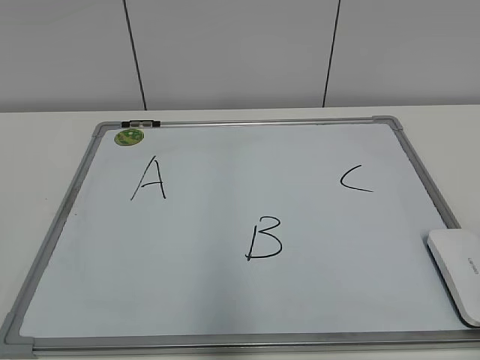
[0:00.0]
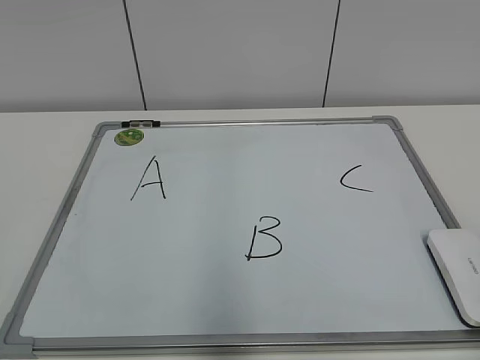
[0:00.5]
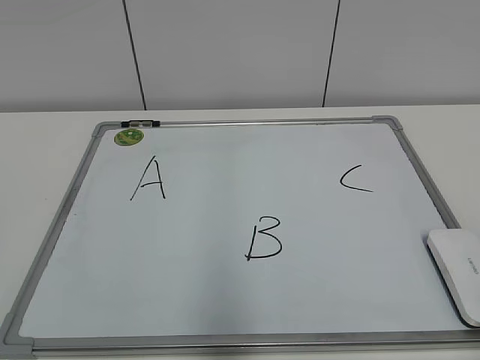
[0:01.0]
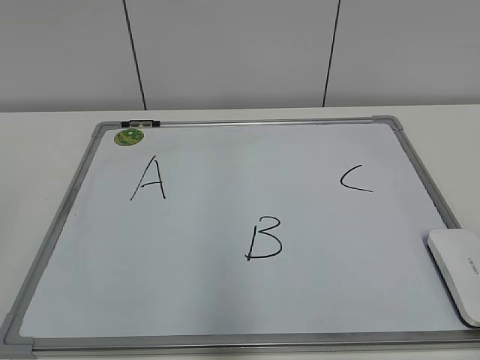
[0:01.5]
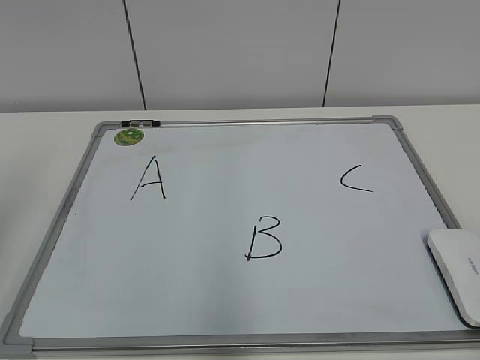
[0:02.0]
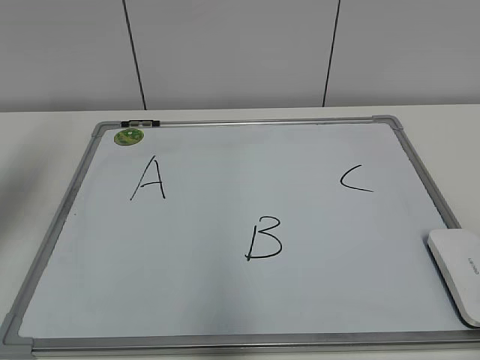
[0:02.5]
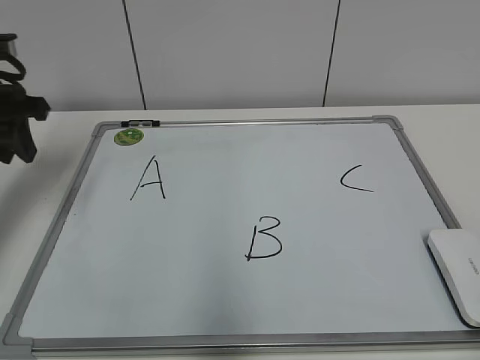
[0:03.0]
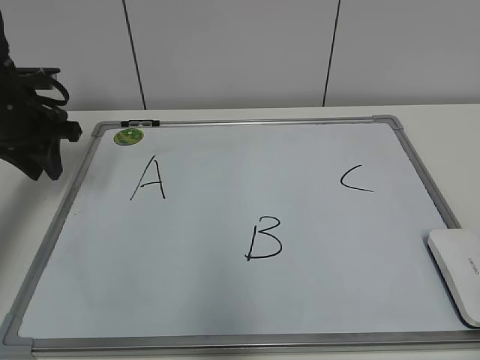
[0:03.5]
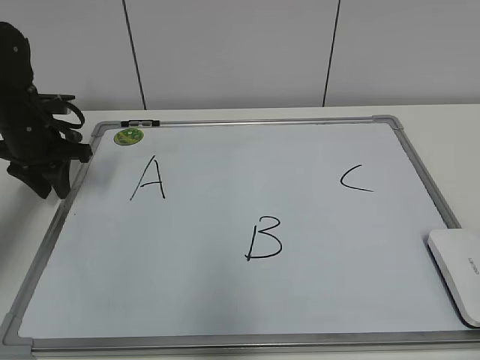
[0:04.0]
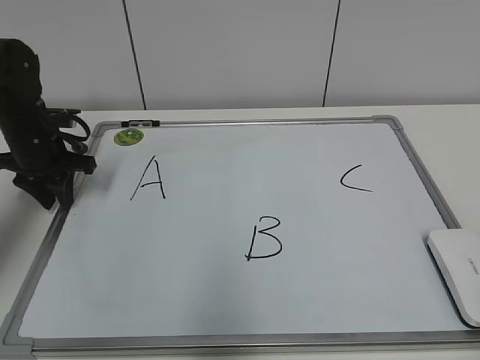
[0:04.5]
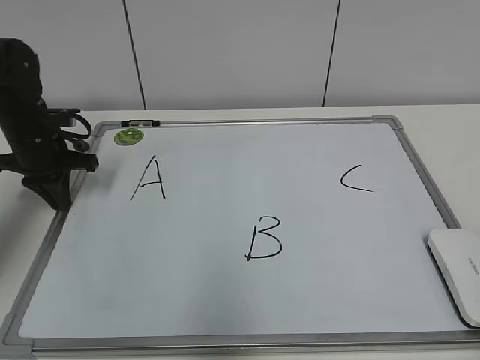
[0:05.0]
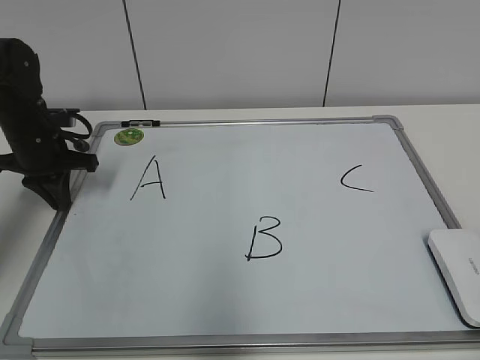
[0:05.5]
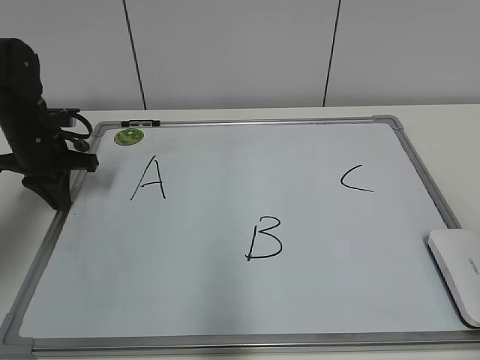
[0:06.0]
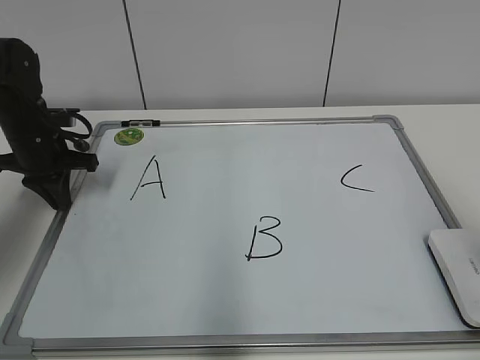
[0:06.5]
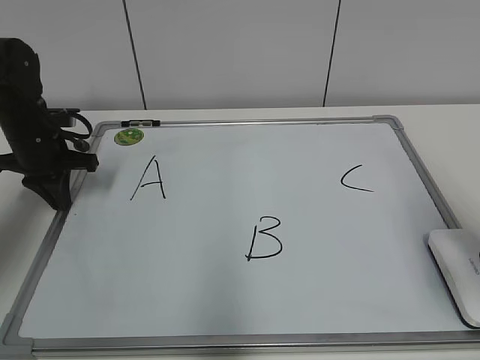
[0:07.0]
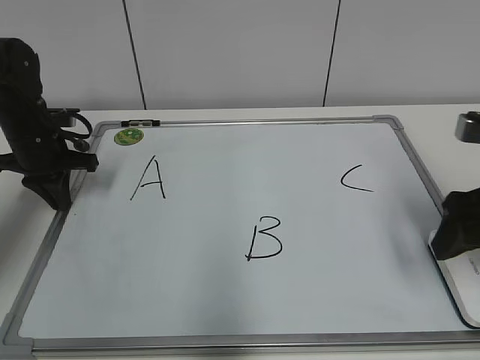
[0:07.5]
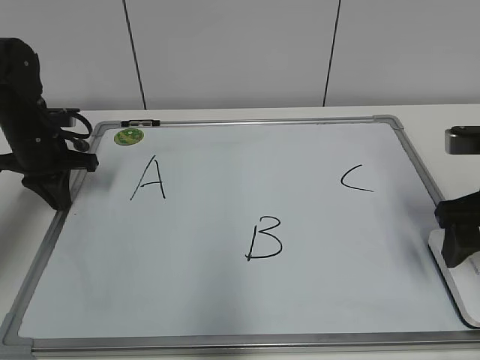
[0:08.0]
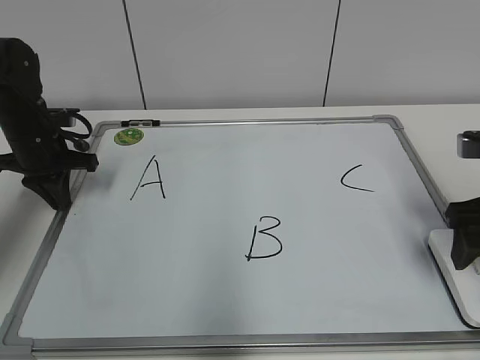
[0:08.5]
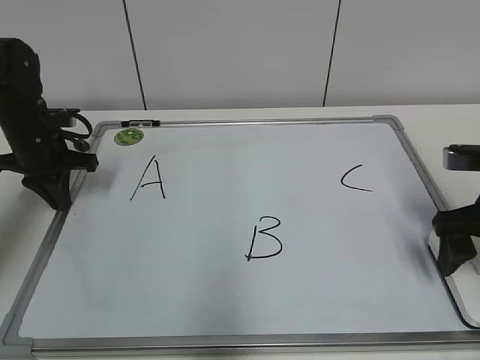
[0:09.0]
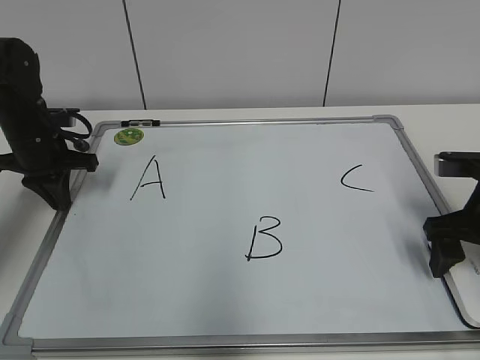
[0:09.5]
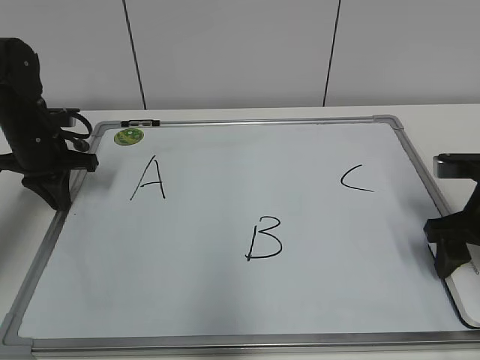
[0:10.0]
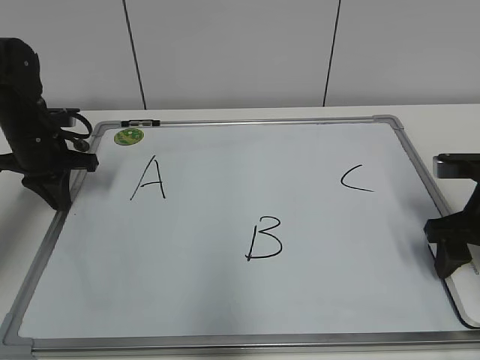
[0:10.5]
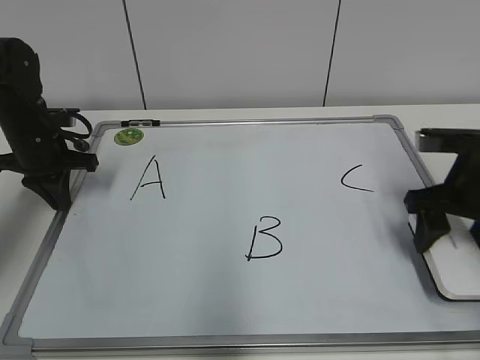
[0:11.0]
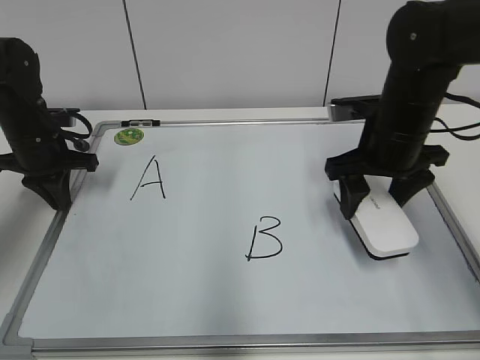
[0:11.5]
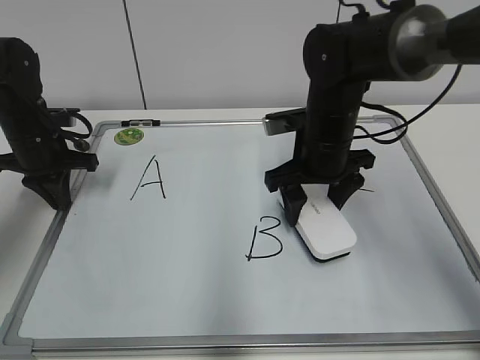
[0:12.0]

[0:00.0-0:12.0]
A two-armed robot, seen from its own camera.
Task of the whole recording: pick up the eraser on the blackboard and erase the letter "B".
Step, 0:00.0 to 0:04.5: Hold the drawing board steady with your left hand.
Step, 0:05.5 to 0:10.5: Grab the eraser with your right hand.
0:02.0 to 0:04.0: The left gripper moves forward and downward, approximately 30 cm.
0:04.0 to 0:06.0: The left gripper closes.
0:06.0 to 0:08.0: The right gripper heads forward and downward, covering some 25 cm, and opens its fingers.
0:08.0 to 0:10.0: The right gripper shifts about 5 cm downward, and closes its fingers.
0:10.0 to 0:12.0: The right gripper heads to the left and forward, covering roughly 20 cm.

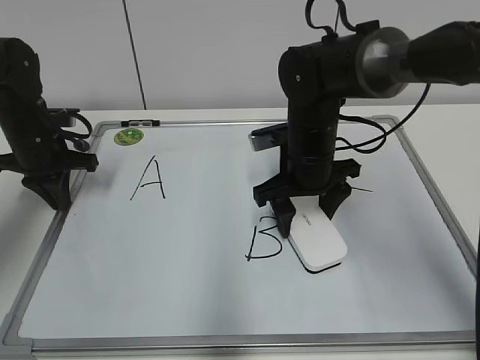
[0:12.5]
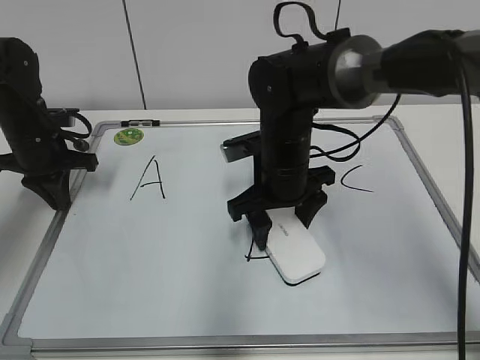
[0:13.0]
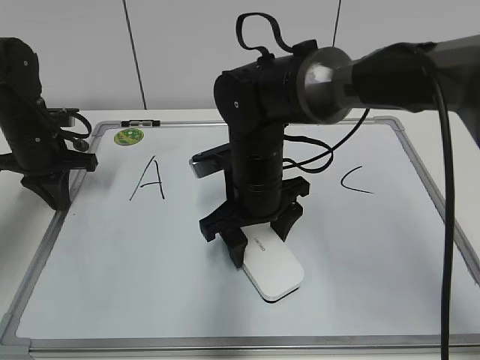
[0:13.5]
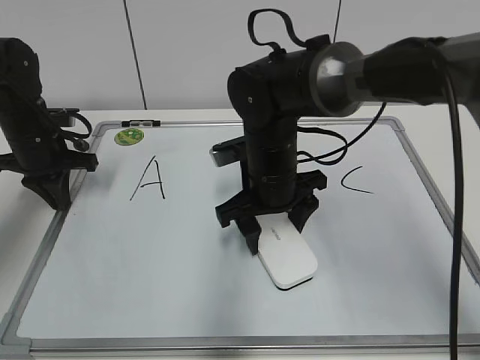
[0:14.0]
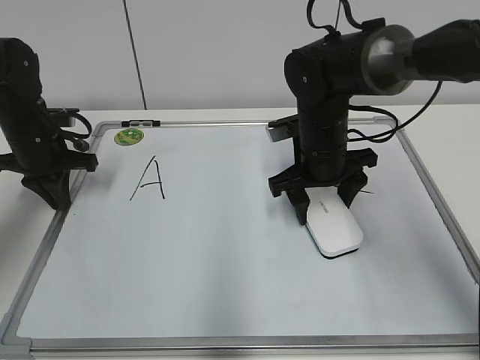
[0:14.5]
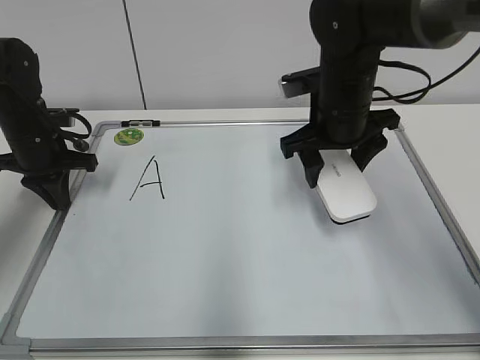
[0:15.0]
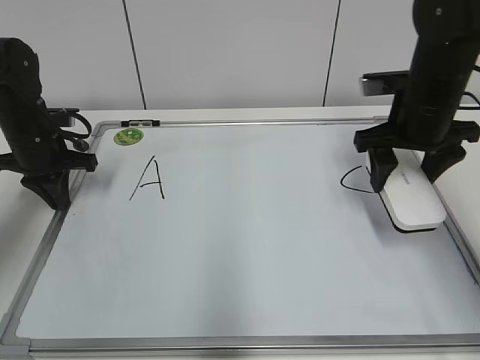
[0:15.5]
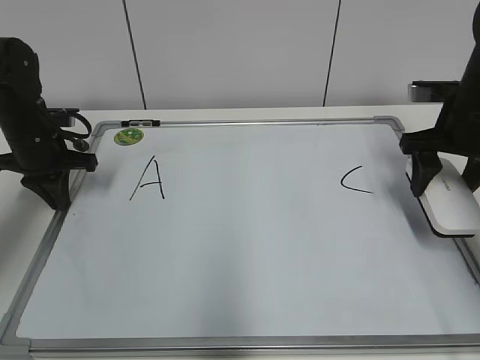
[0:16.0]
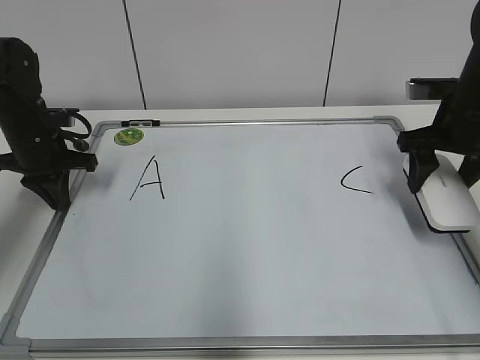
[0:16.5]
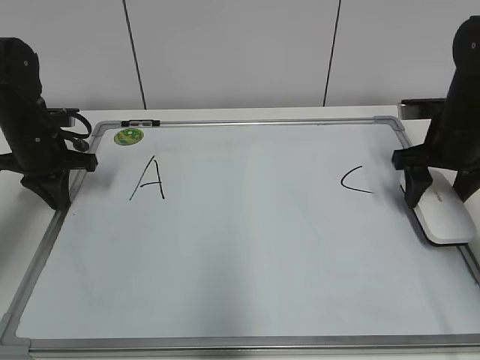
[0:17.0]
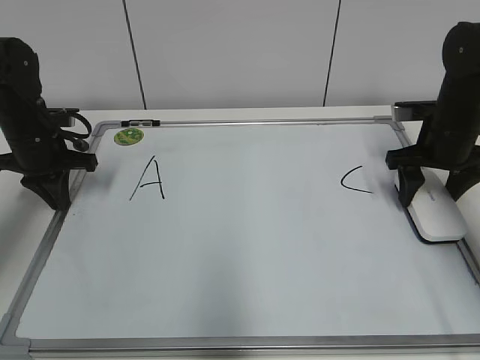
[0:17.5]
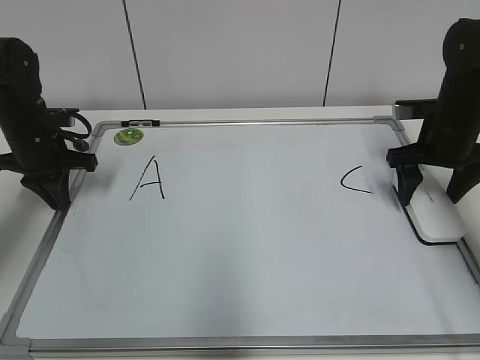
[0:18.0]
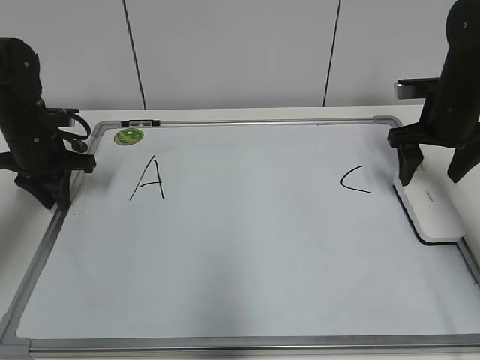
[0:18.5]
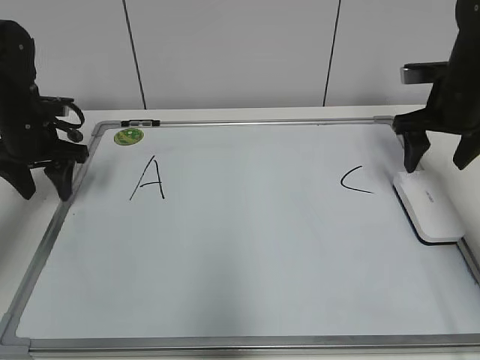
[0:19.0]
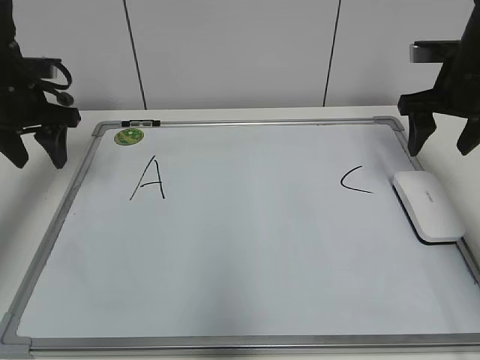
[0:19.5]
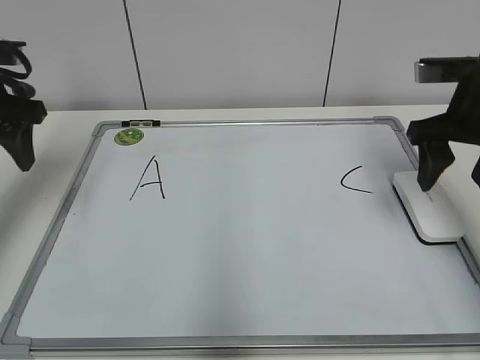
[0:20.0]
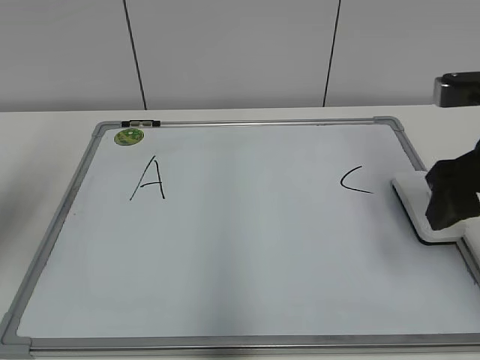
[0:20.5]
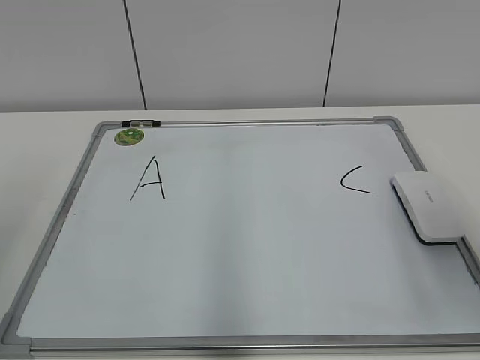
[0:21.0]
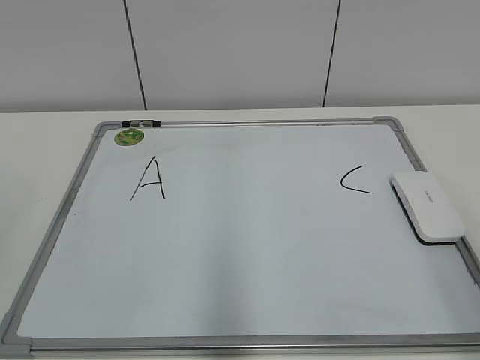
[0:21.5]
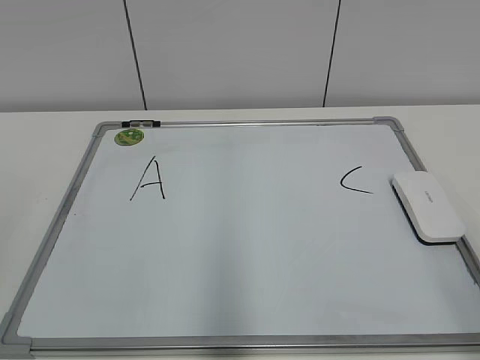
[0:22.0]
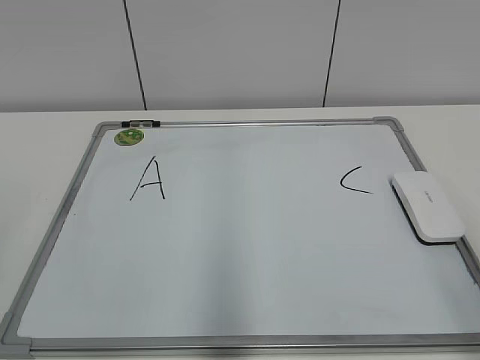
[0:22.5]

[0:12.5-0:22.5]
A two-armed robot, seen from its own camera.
Task of the whole recording: pick up the eraser on the blackboard and erase the letter "B".
Step, 0:14.5 to 0:17.5: Put down the eraser with your right hand.
0:12.5 to 0:14.5: The right gripper reaches roughly 5 cm to the left, then returns.
0:14.5 to 0:16.5: The right gripper shifts approximately 15 cm to the right.
0:16.5 to 0:18.5: The right gripper opens.
0:18.5 to 0:20.5: Both grippers travel together backward and upward, about 20 cm. The left gripper opens up. The right gripper closes.
0:20.5 to 0:22.5: Both grippers move backward, roughly 20 cm.

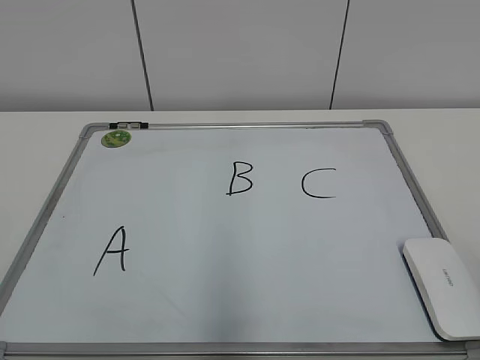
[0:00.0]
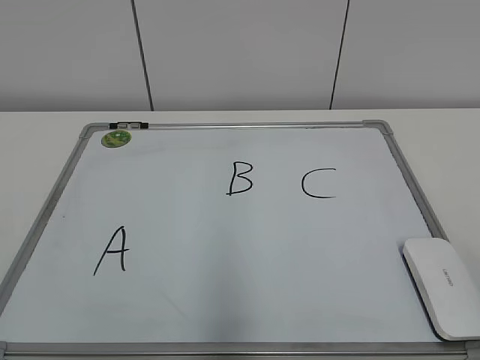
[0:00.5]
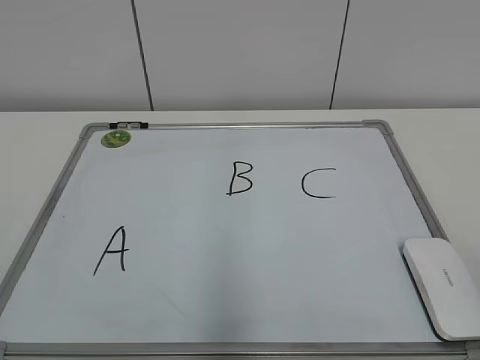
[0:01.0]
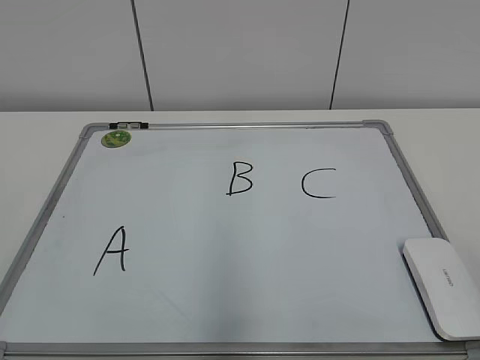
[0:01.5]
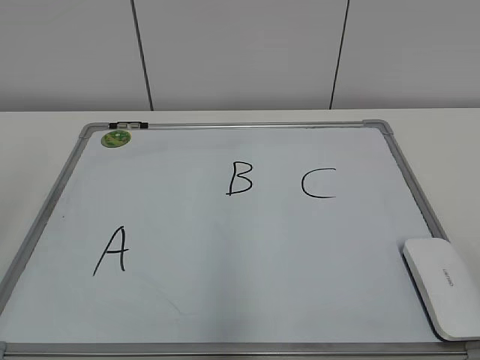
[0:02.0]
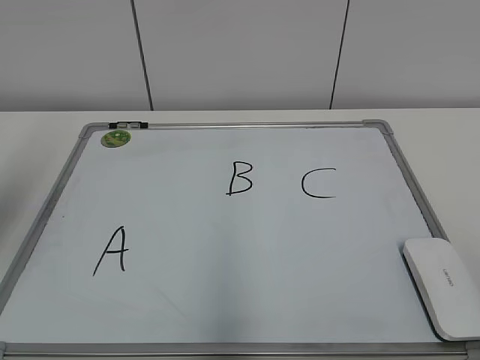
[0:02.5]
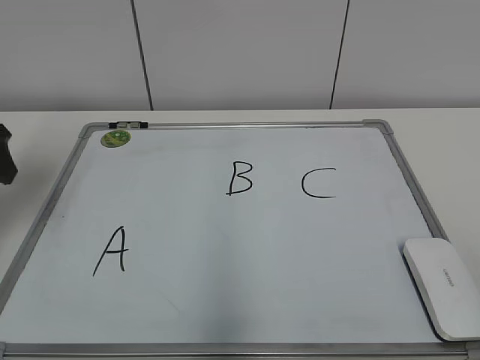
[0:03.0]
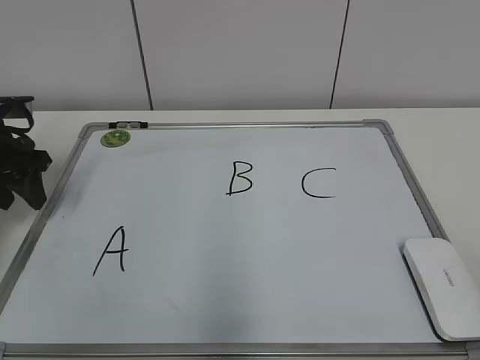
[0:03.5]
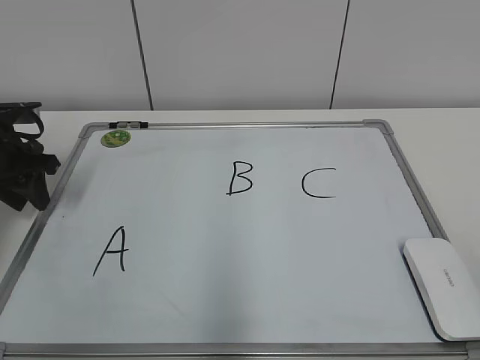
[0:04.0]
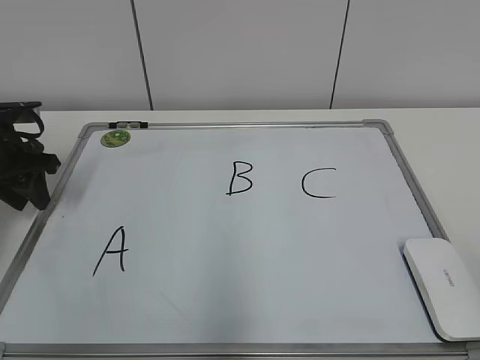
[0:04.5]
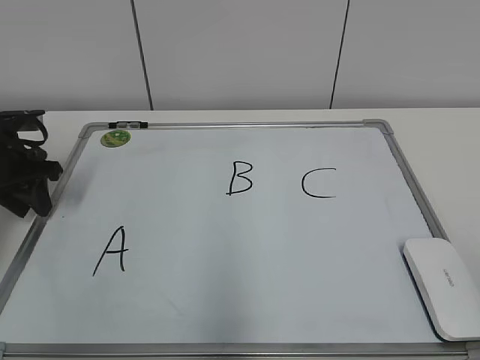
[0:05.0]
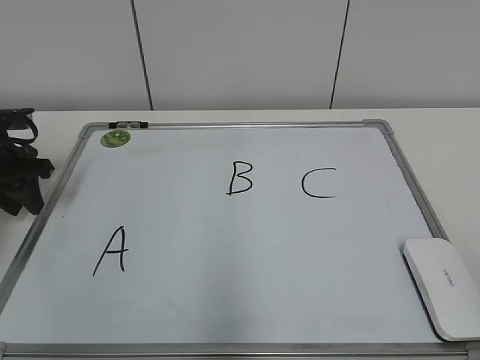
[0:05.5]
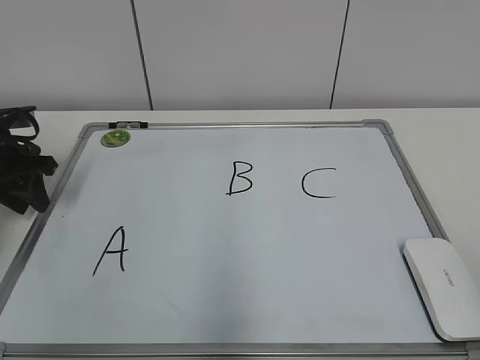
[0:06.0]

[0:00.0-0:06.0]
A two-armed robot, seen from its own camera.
Task of the whole recording: pick up the eraser on the blackboard and erase the letter "B".
0:02.0 to 0:04.0: The left gripper shifts approximately 35 cm forward and downward, and closes its fingers.
